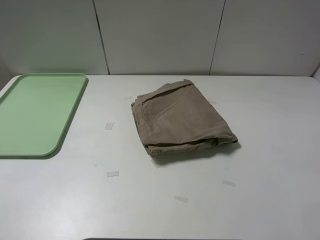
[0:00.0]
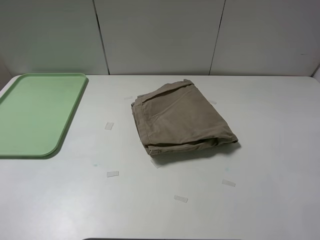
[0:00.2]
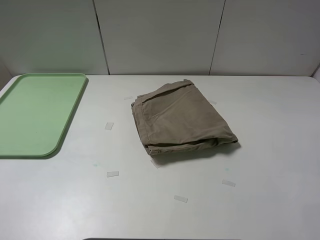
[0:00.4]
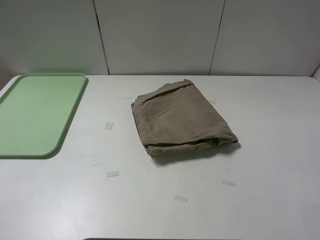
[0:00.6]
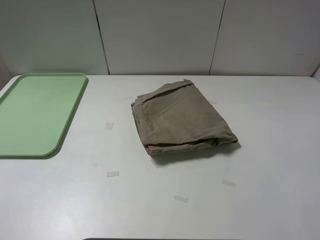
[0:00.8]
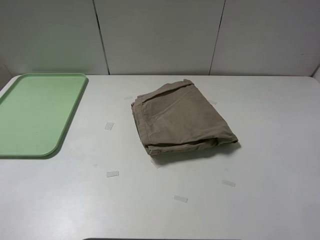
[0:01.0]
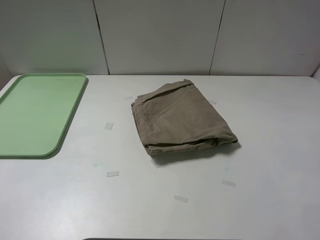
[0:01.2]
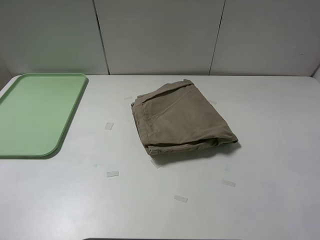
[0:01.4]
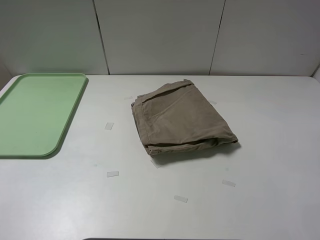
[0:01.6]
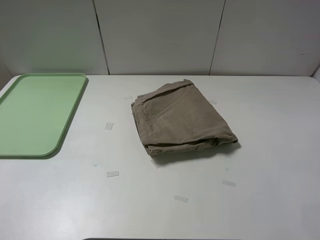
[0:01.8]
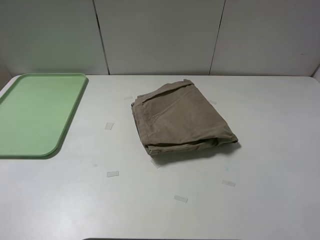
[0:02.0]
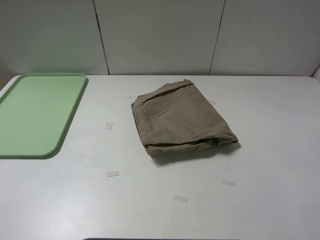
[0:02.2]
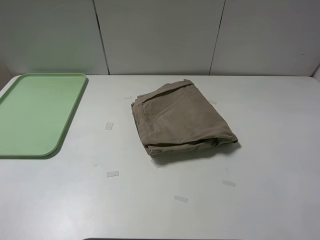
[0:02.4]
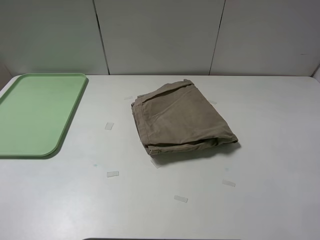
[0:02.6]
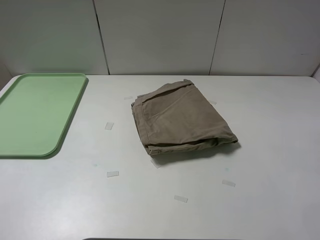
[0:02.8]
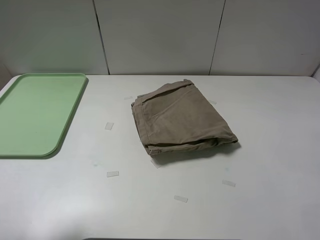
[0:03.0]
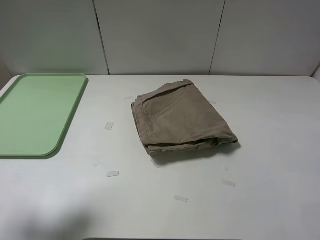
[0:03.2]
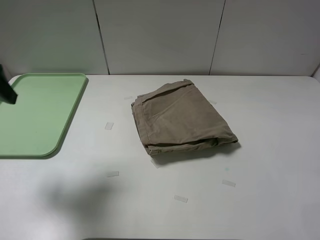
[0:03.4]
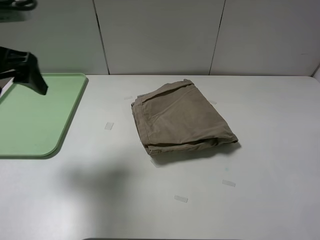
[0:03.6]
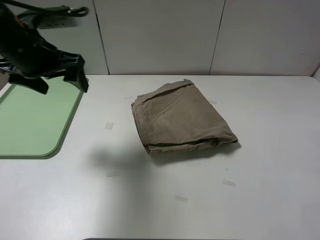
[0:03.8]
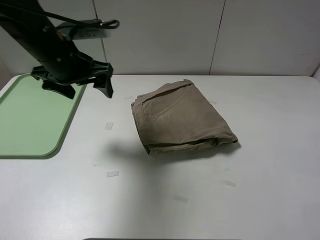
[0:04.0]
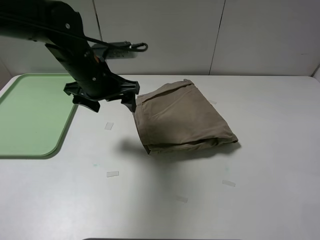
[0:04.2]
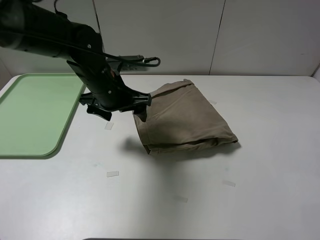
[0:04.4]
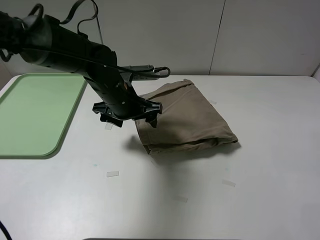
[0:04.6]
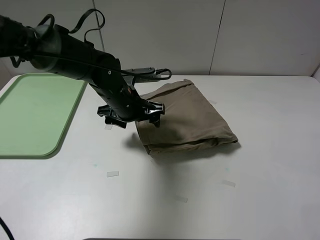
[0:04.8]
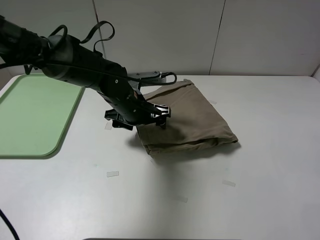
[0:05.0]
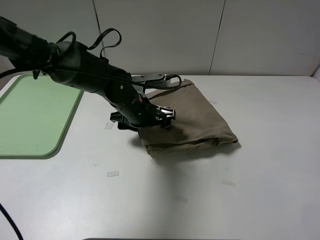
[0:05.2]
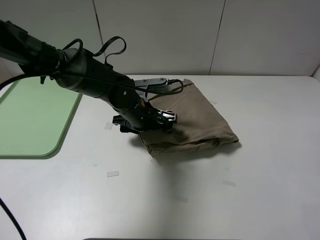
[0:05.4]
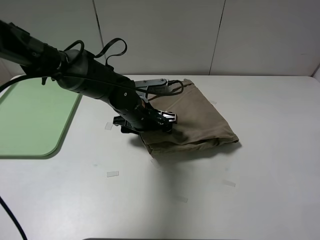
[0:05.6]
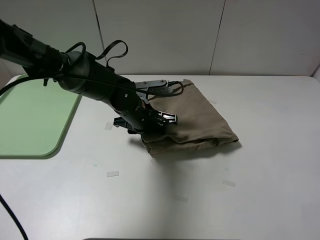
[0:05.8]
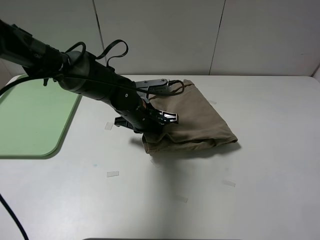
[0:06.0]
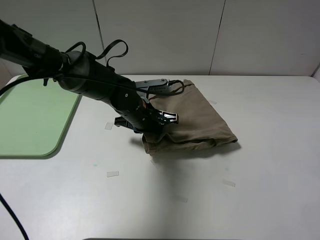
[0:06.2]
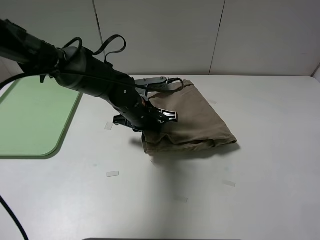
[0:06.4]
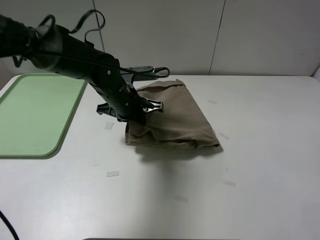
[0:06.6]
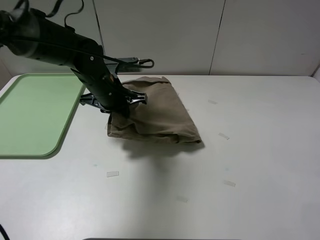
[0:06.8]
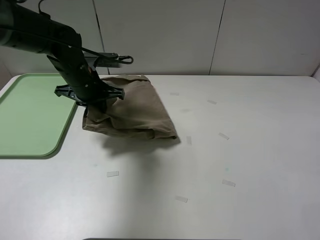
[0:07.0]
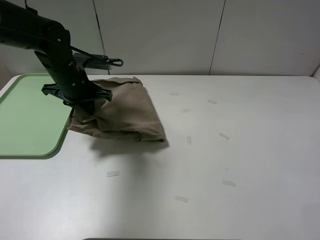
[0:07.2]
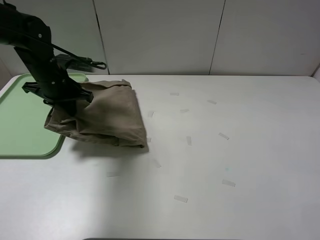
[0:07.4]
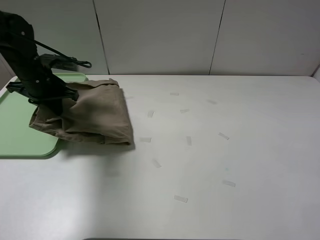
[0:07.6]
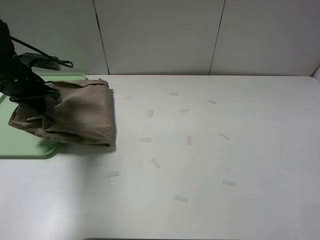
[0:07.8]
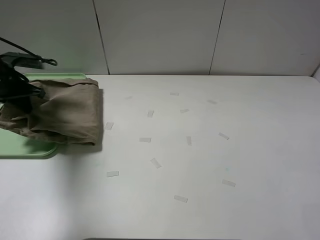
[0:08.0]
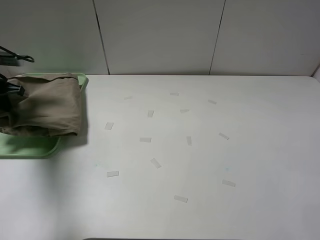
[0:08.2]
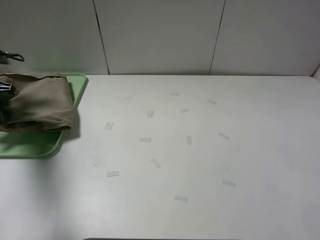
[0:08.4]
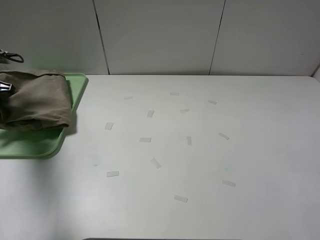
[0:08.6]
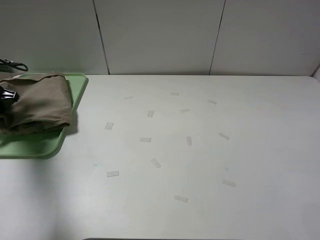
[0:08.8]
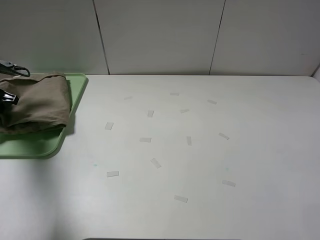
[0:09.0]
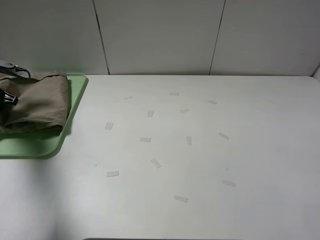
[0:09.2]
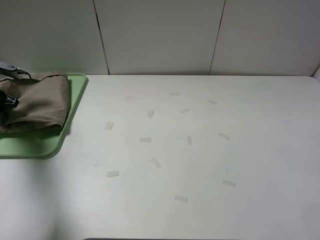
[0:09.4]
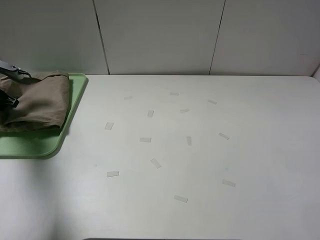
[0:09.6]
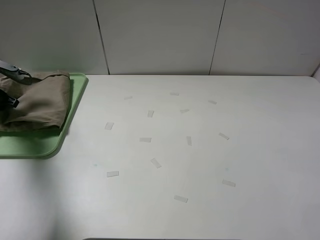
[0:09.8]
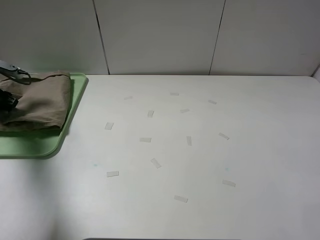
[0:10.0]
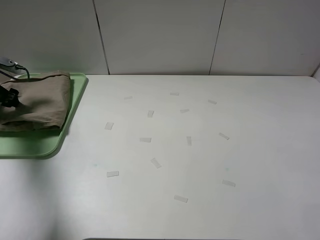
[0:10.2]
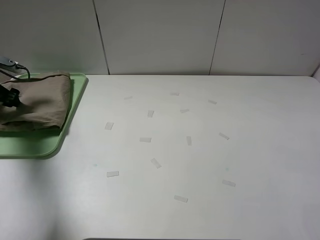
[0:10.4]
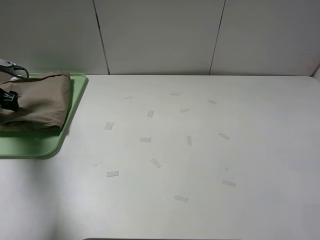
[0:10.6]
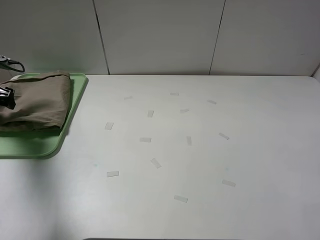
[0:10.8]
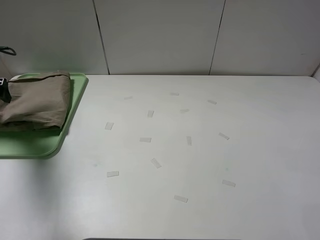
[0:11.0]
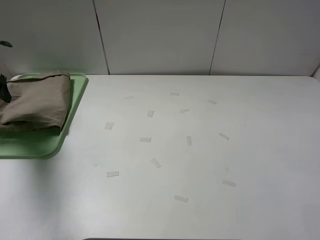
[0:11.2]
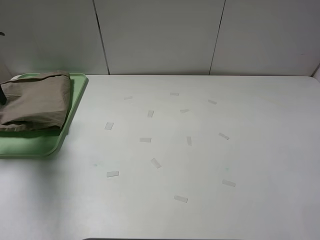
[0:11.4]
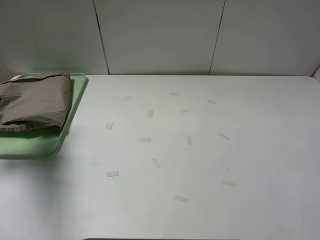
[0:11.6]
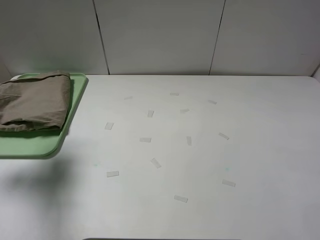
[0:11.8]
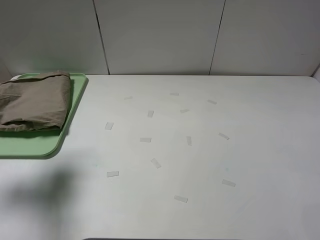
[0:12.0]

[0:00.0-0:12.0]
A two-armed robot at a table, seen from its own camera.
Task of the whole recording: fold the khaki jeans in half with two grippers, then fold them in half again, and use the left claw to place the folded fold khaki jeans on the tray.
Step, 0:00.0 to 0:06.0: Grasp the khaki trousers with the left gripper.
Step, 0:06.2 to 0:10.8: Place the folded khaki trousers on the green tray with the left gripper.
0:00.0 to 0:01.6: Both grippers stay put.
0:01.6 to 0:03.0: The left gripper travels forward by about 10 cm.
0:03.0 to 0:04.4: The left gripper shifts approximately 35 cm to the right, forward and downward.
0:04.4 to 0:06.0: The left gripper shifts approximately 10 cm downward and to the right, and closes its fingers.
0:06.0 to 0:07.6: The left gripper travels to the left by roughly 25 cm.
0:07.6 to 0:09.0: The left gripper goes roughly 15 cm to the left.
0:09.0 to 0:10.4: The left gripper opens its fingers.
0:10.4 to 0:12.0: The left gripper shifts about 25 cm backward, upward and to the right.

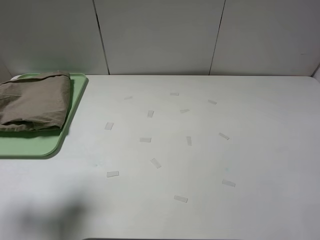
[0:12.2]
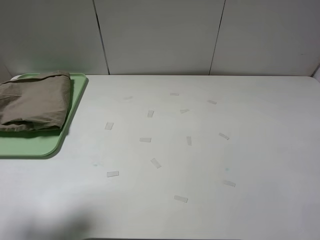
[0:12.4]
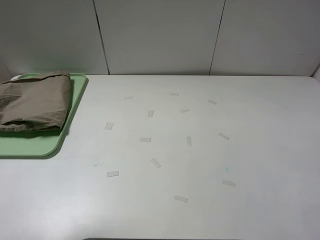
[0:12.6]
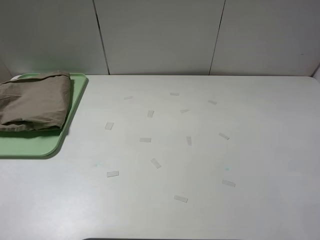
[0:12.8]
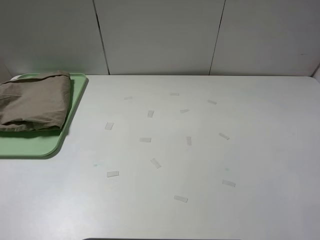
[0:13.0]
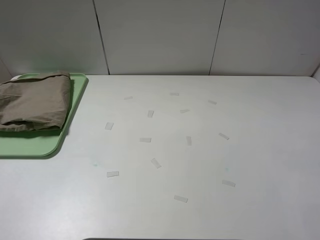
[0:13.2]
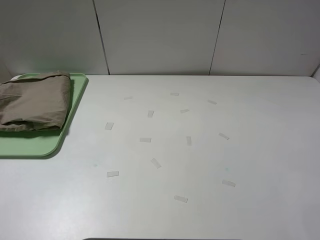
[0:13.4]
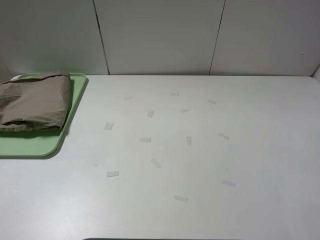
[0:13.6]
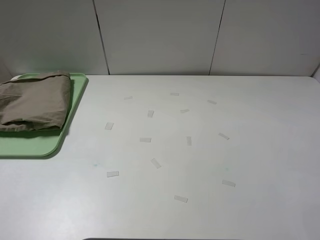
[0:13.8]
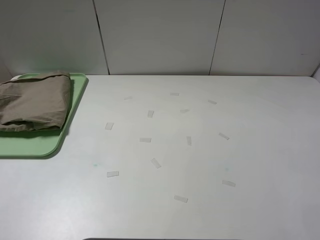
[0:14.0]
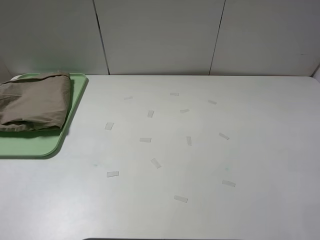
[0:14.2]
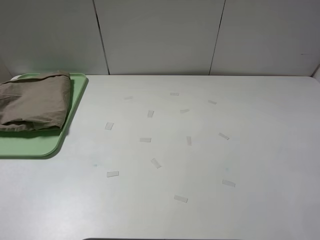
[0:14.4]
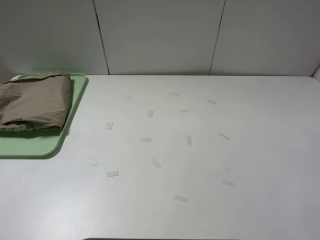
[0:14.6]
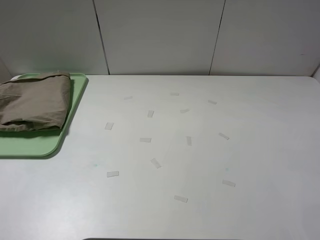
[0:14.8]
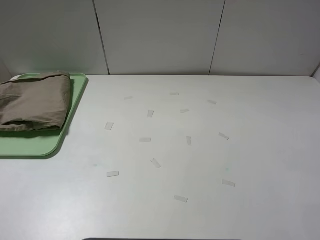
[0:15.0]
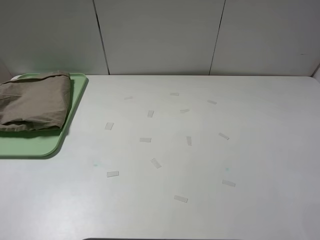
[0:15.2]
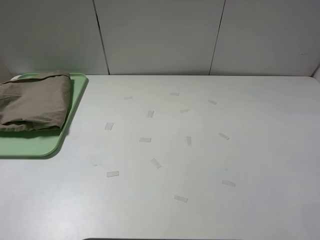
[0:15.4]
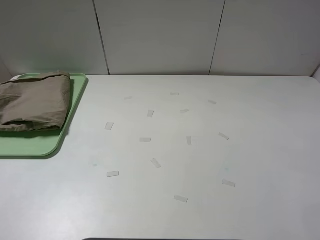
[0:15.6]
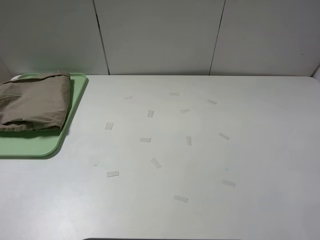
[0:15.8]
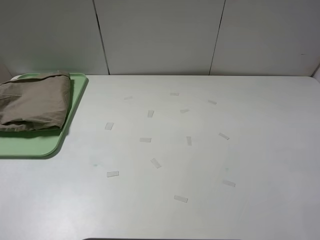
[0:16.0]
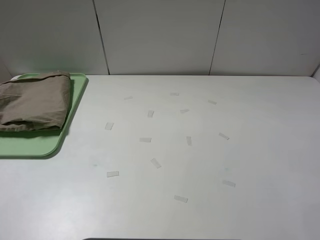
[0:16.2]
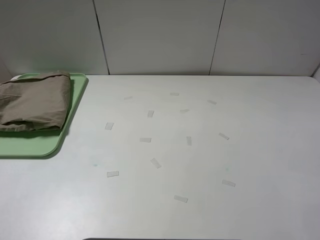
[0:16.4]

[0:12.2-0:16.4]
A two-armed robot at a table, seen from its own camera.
Task of the whole recording: fold the khaki jeans in half with two grippers, then fold them in half again, and use the left claw to place the folded fold khaki jeans on the tray.
0:12.2 to 0:13.6: The left gripper is displaced backward by about 20 cm.
0:15.0 to 0:16.4: The two grippers keep their place.
